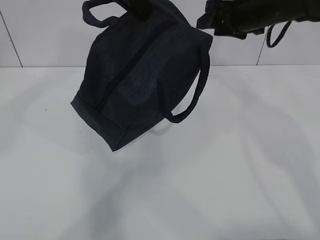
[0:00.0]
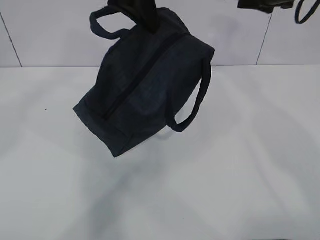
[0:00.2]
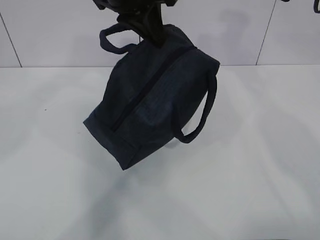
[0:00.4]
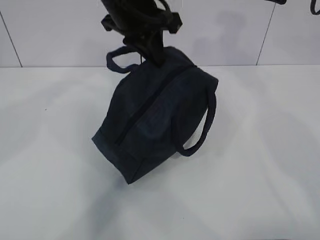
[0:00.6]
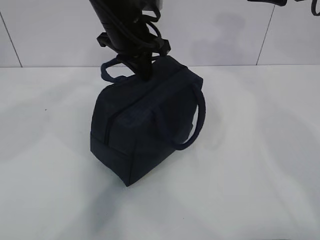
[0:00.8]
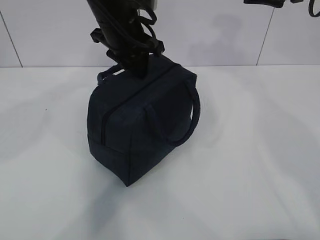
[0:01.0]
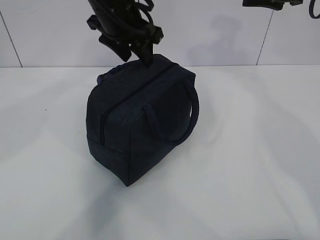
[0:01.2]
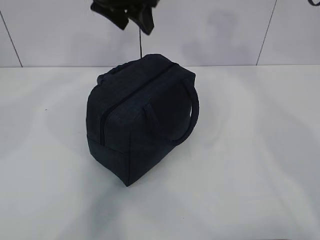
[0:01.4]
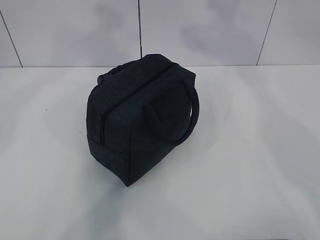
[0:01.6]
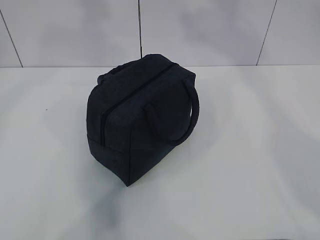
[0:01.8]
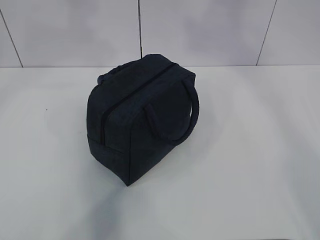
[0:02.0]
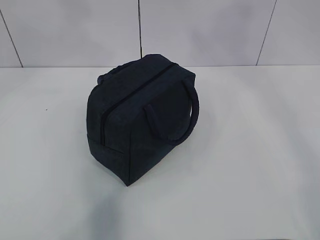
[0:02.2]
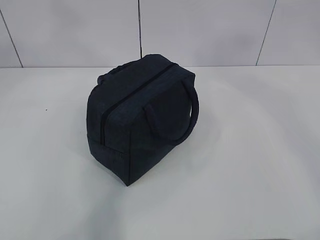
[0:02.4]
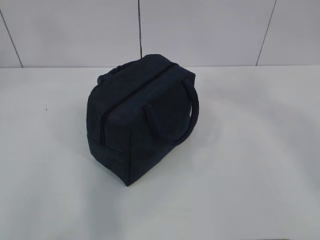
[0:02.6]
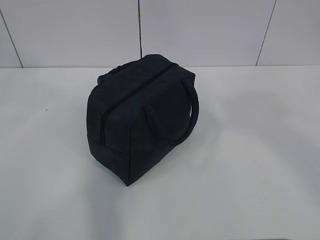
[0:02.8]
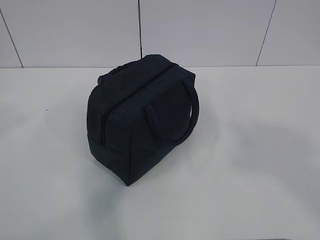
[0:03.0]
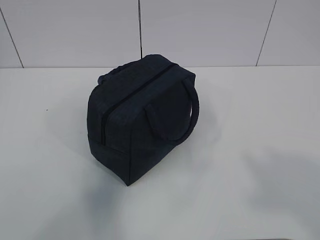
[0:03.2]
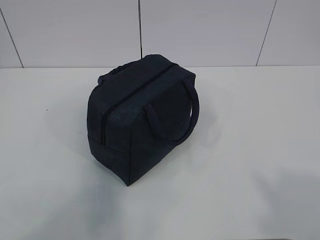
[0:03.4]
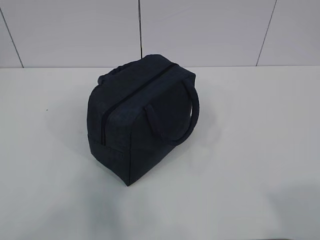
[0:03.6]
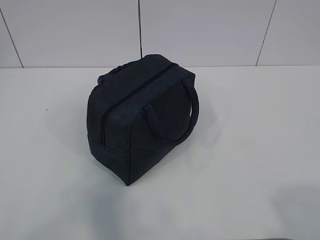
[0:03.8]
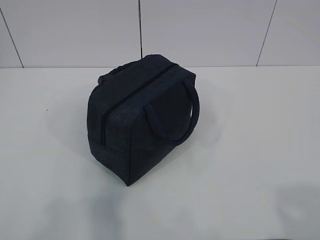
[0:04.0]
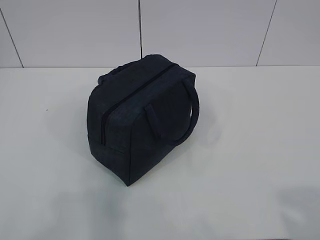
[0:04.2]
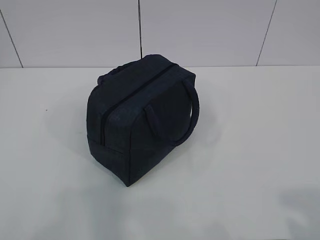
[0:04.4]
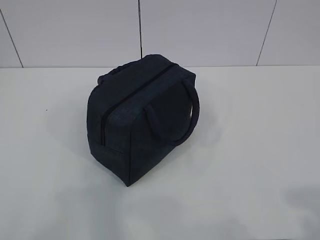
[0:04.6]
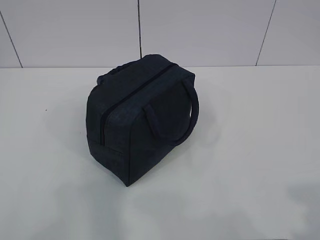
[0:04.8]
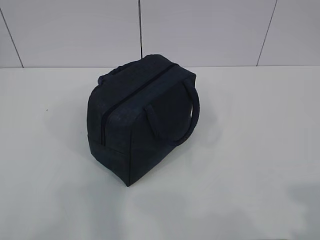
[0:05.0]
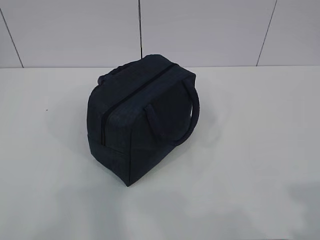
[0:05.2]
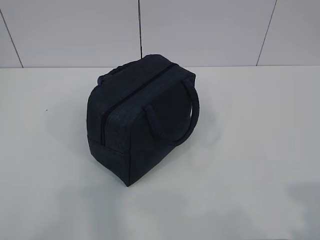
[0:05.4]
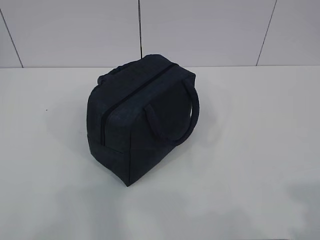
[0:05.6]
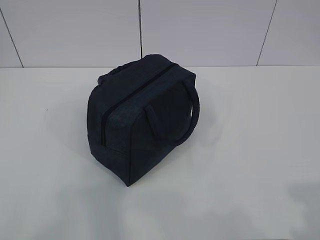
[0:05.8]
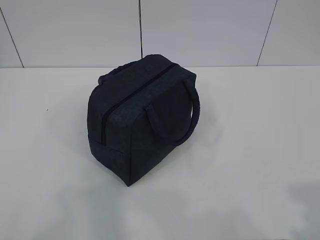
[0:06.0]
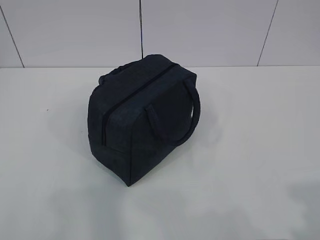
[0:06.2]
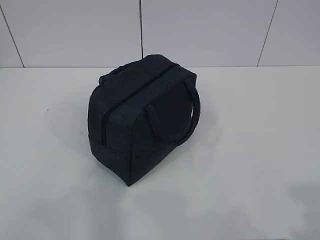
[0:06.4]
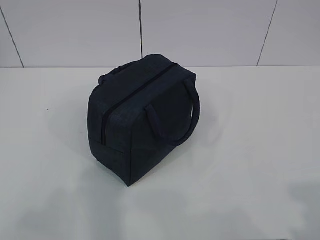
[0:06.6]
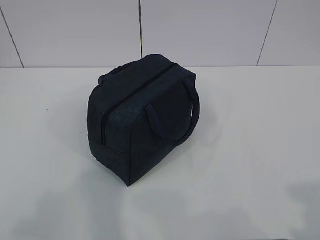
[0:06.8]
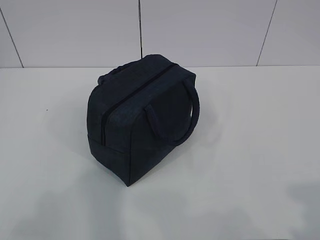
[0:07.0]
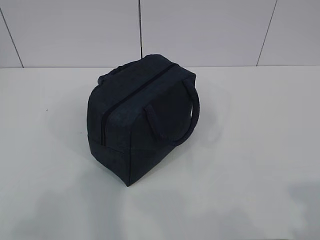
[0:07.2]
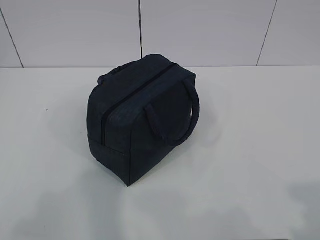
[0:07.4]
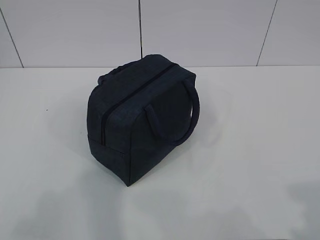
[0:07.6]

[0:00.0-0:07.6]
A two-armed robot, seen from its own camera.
0:00.0 to 0:01.6: The left gripper goes downward and returns, some 10 cm each way, and opens; the right gripper goes approximately 15 cm upward and backward.

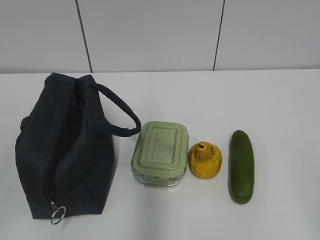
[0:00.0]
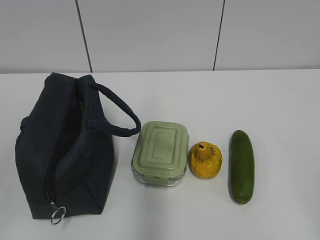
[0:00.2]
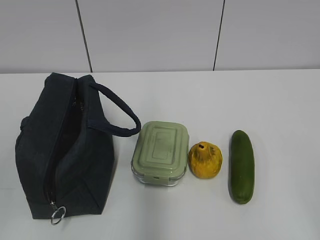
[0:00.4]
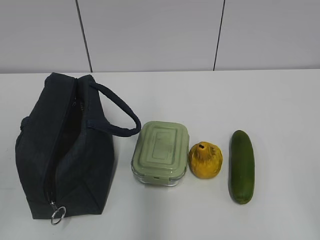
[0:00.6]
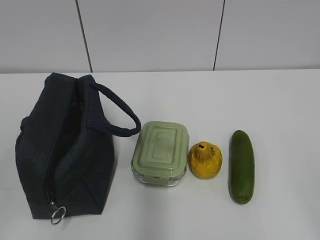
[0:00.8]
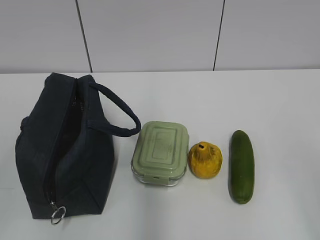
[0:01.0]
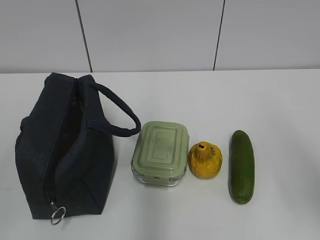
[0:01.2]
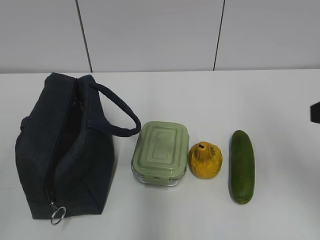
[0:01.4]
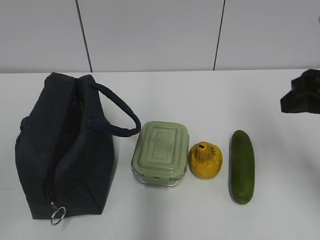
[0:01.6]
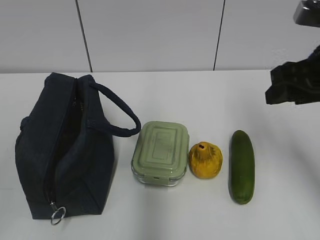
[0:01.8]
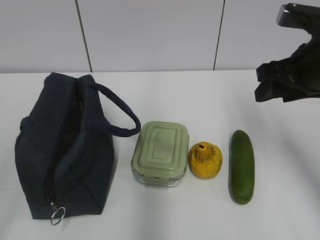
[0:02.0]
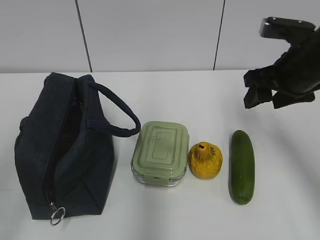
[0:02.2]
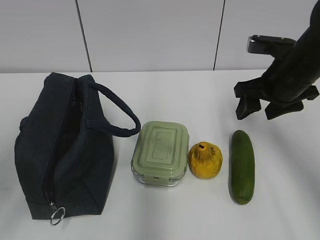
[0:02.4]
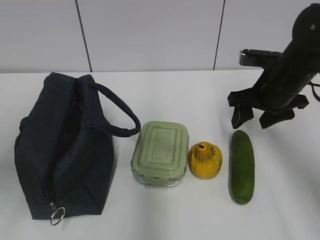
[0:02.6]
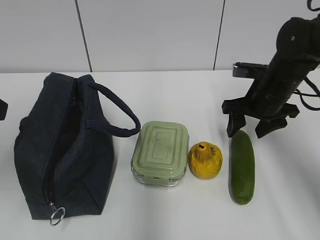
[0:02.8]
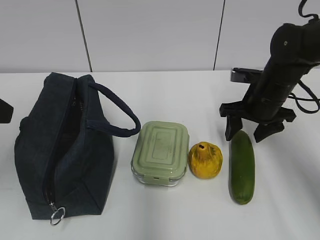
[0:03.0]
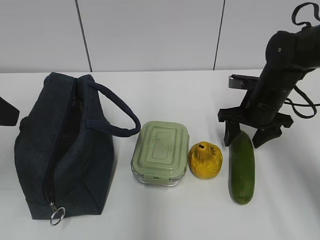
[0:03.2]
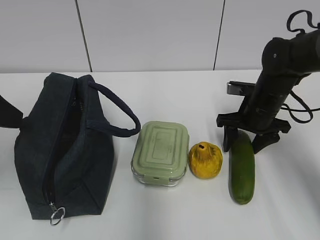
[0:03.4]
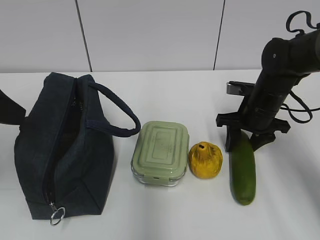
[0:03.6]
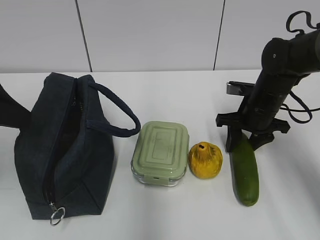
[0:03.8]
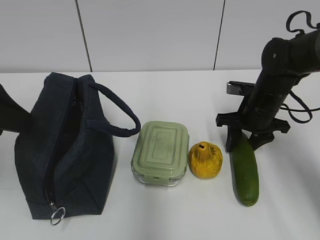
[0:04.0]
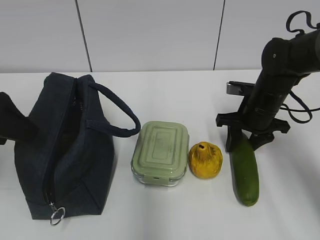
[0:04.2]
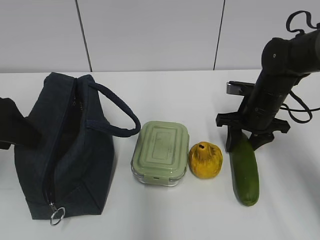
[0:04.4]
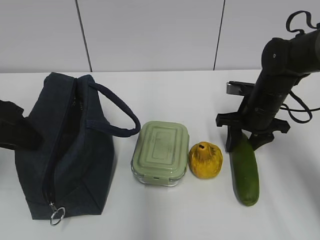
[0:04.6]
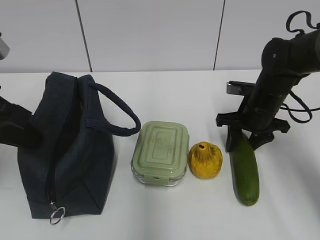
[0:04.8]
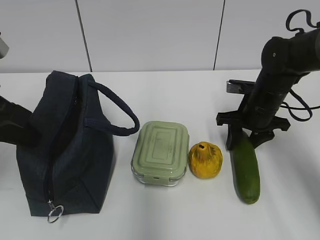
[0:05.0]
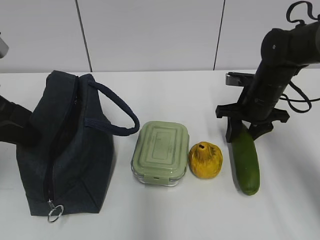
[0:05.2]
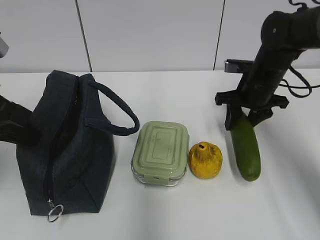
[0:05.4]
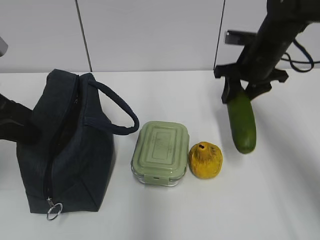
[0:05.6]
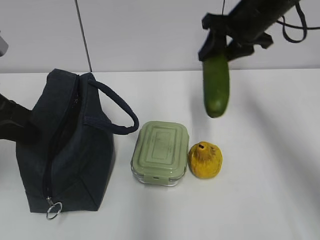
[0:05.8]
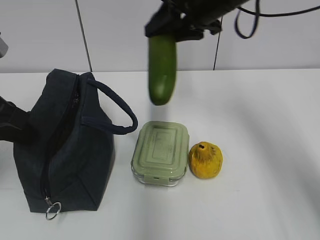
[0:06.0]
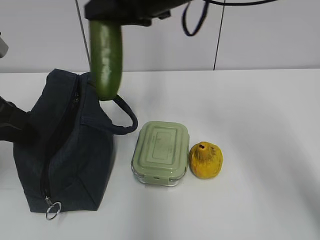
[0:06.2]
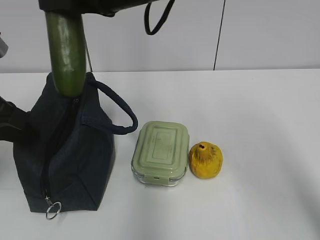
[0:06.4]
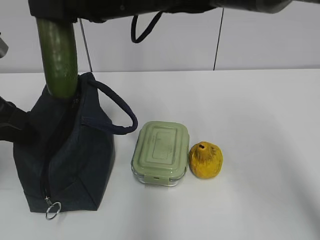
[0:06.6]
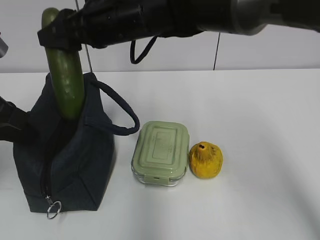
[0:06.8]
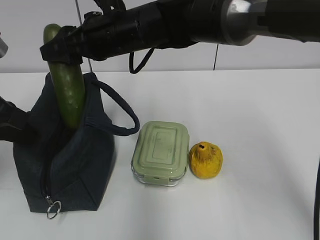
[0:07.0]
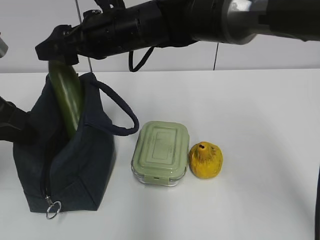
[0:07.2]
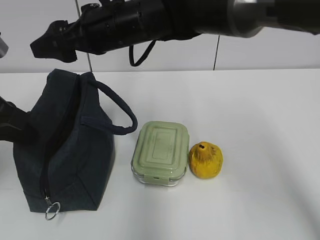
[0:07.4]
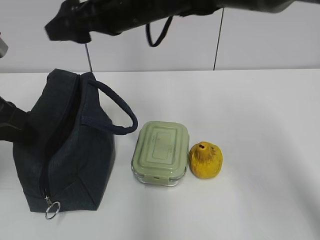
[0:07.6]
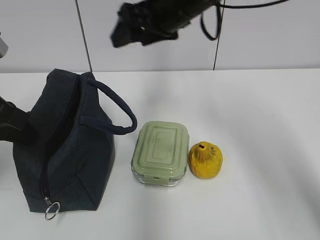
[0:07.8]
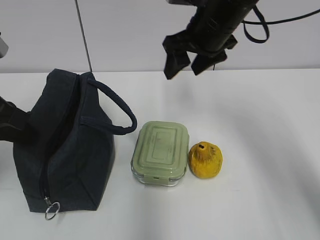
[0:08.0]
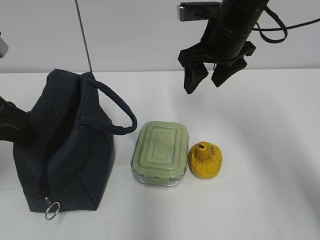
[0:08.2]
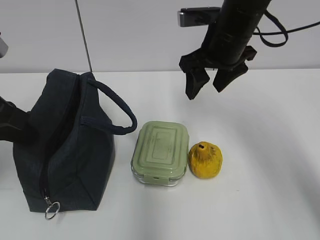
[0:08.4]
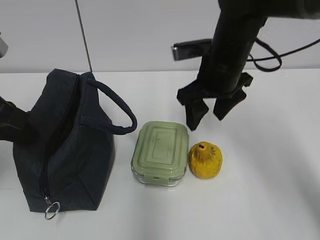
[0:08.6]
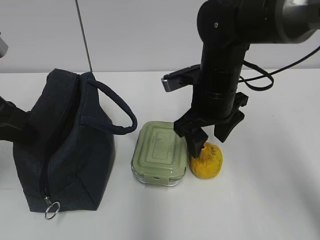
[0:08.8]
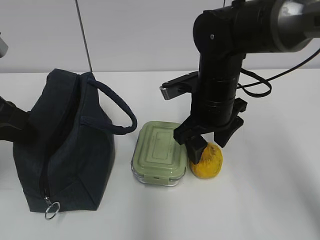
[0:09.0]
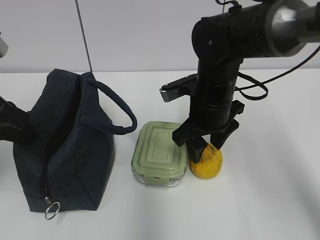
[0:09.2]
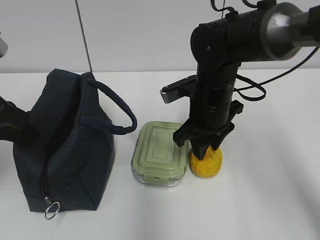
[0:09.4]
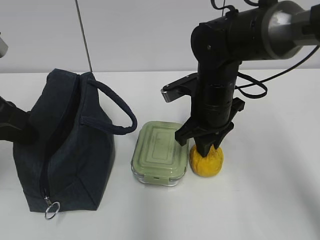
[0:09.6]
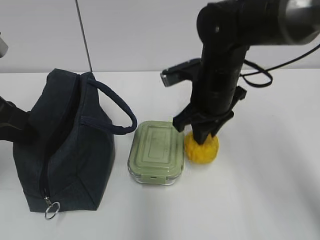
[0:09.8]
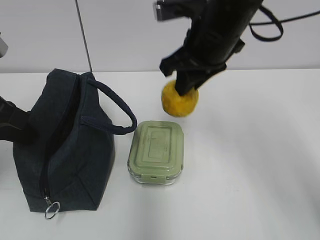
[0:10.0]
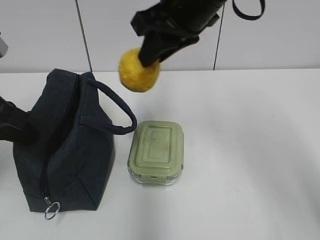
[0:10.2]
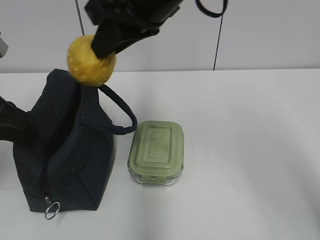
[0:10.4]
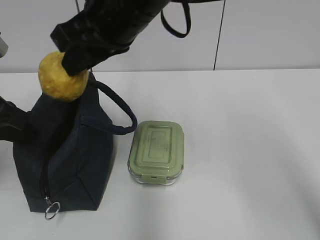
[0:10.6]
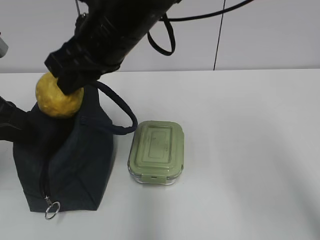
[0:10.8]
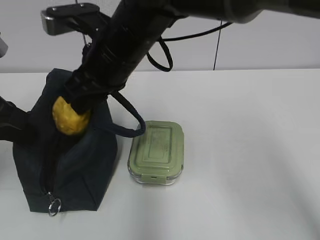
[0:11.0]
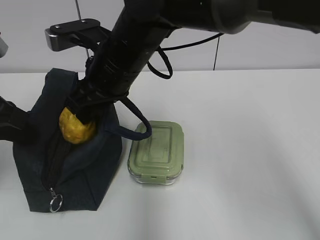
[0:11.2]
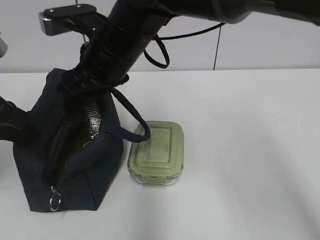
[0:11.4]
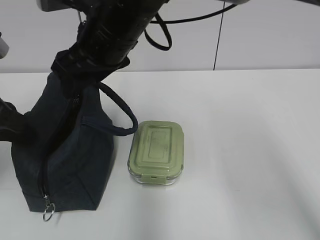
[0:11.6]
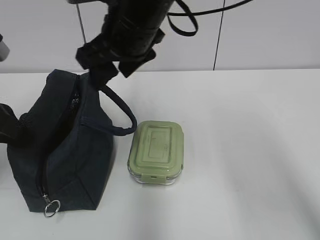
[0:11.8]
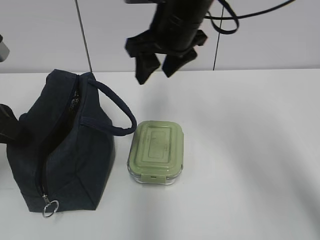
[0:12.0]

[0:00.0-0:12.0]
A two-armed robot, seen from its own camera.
0:01.6 to 0:03.0: The right gripper travels forward and downward by roughly 20 cm. Meanwhile the left gripper moves forward, roughly 20 cm, and opens up.
0:03.0 to 0:04.4: The left gripper moves approximately 5 cm.
0:04.4 to 0:06.0: The left gripper closes, while the right gripper travels upward and to the left by approximately 25 cm.
0:06.0 to 0:07.6: The right gripper heads to the left, covering some 10 cm, and opens up.
0:07.6 to 0:09.0: The right gripper goes approximately 15 cm downward and to the right.
0:09.0 to 0:10.4: The right gripper travels upward and to the left by some 20 cm, and closes up.
0:10.4 to 0:12.0: The right gripper shifts roughly 10 cm forward and downward, and opens up.

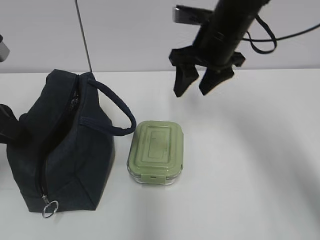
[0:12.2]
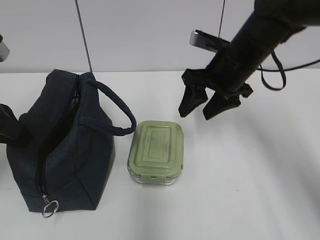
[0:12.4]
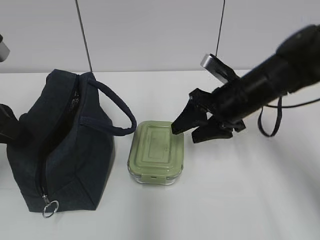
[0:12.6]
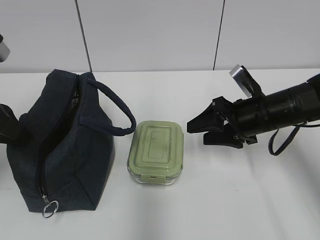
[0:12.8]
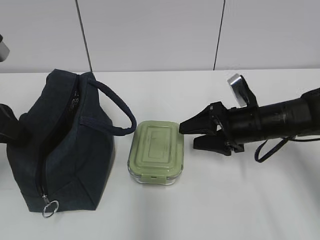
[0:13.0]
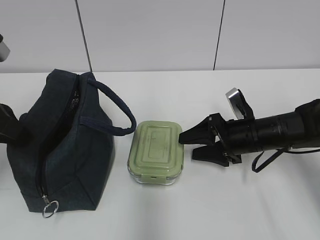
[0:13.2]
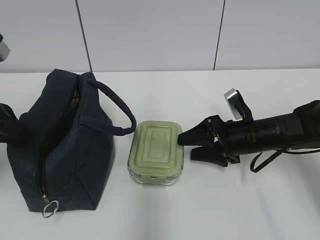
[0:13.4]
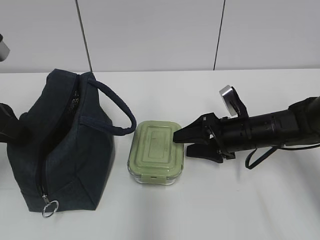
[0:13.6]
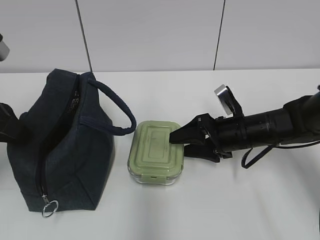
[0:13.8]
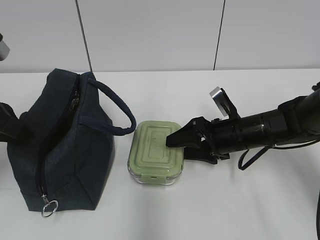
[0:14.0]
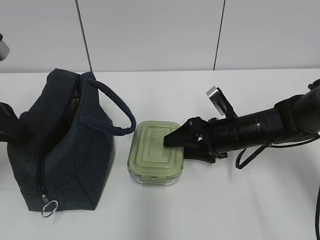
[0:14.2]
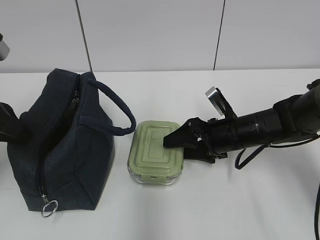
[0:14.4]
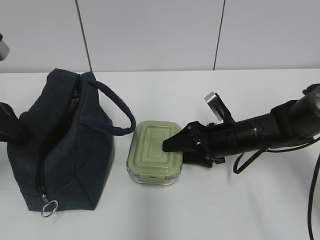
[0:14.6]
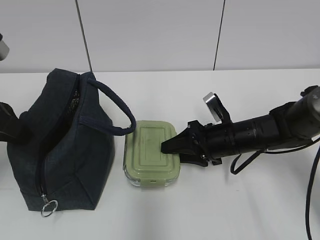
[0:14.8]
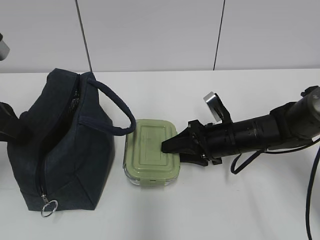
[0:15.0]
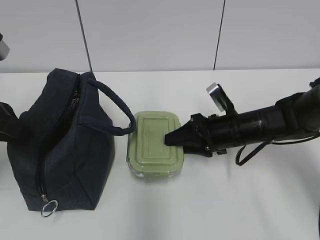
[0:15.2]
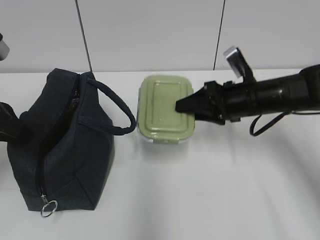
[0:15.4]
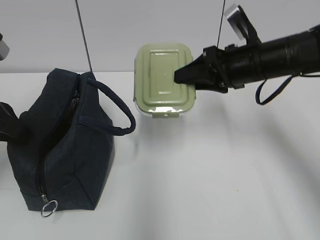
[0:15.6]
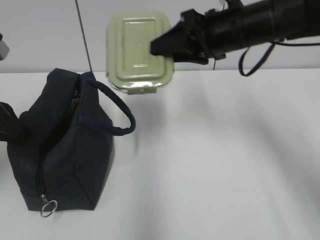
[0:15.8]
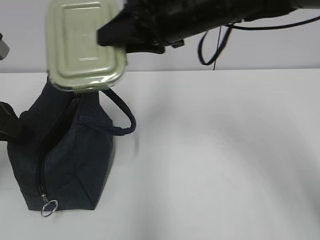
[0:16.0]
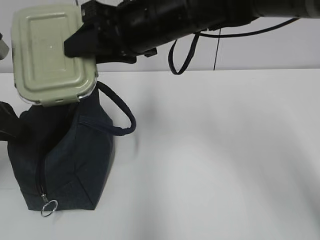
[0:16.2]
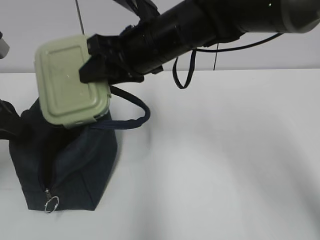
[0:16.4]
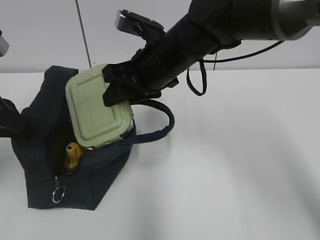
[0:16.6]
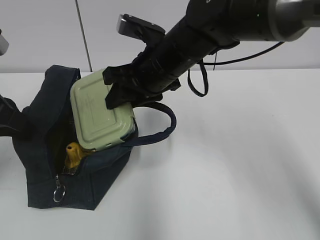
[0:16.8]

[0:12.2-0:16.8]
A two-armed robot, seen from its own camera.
0:12.2 to 0:13.8: The right gripper goes roughly 15 cm downward.
0:13.8 to 0:15.2: The right gripper closes.
0:15.2 to 0:16.8: The right gripper moves to the left and upward, roughly 20 cm.
